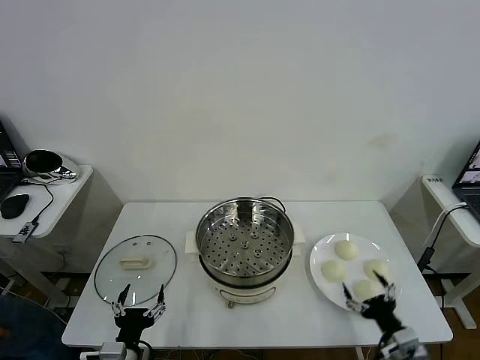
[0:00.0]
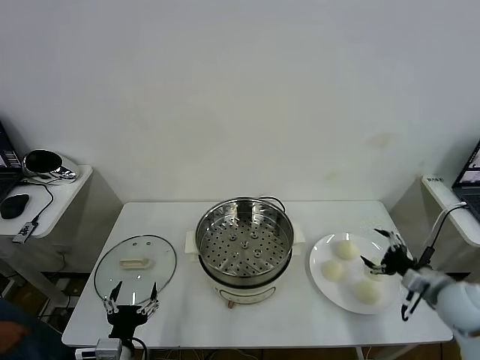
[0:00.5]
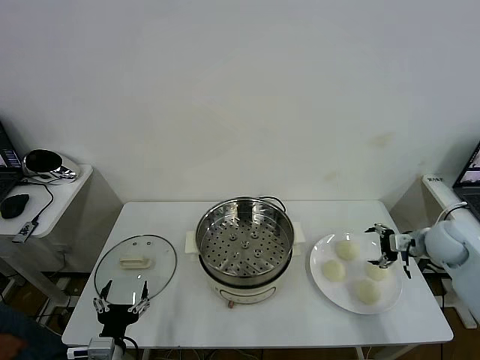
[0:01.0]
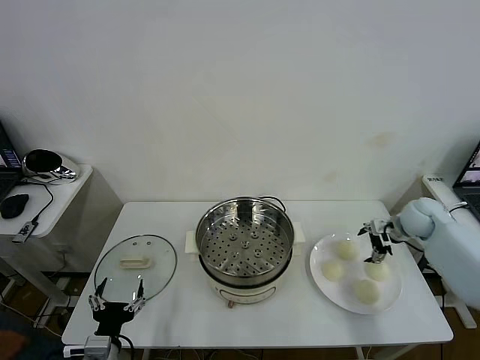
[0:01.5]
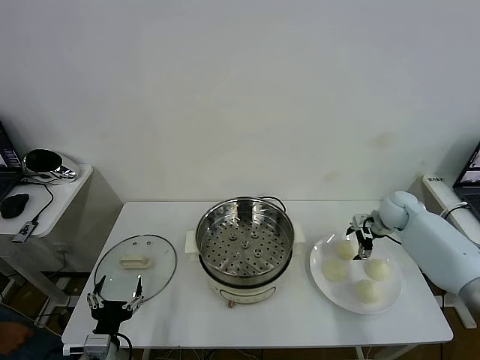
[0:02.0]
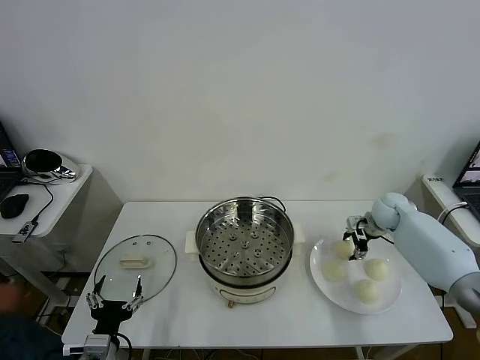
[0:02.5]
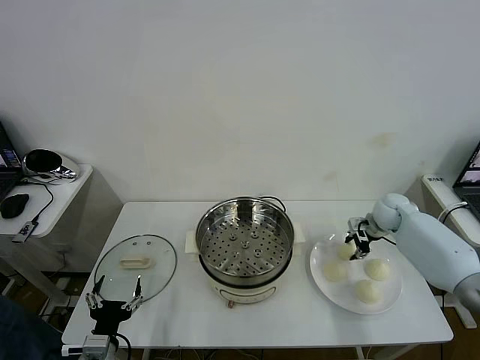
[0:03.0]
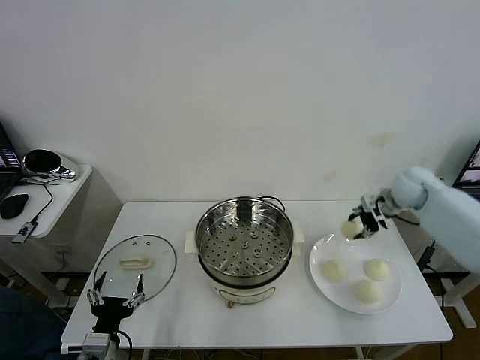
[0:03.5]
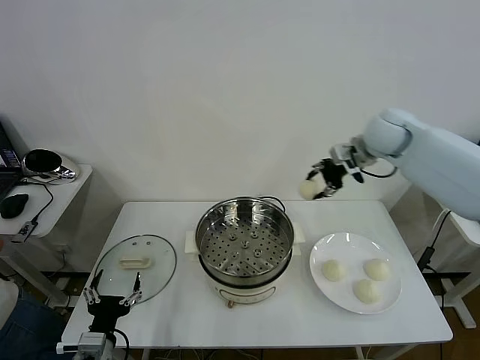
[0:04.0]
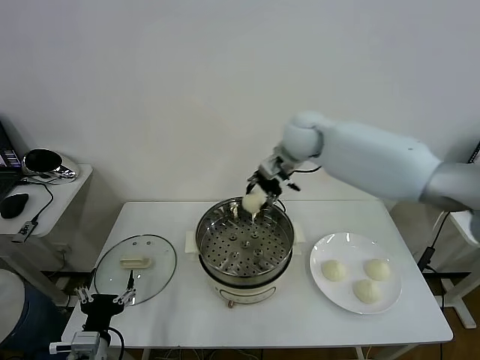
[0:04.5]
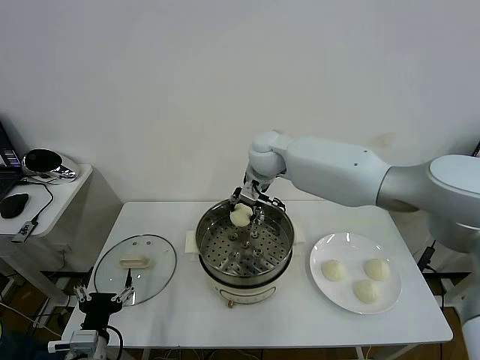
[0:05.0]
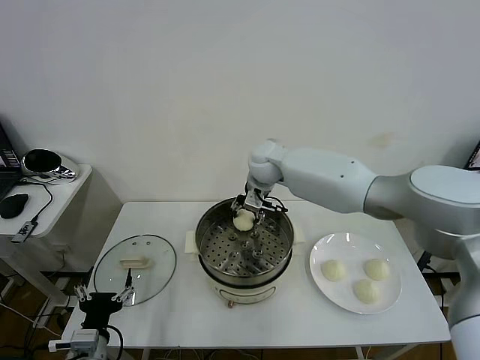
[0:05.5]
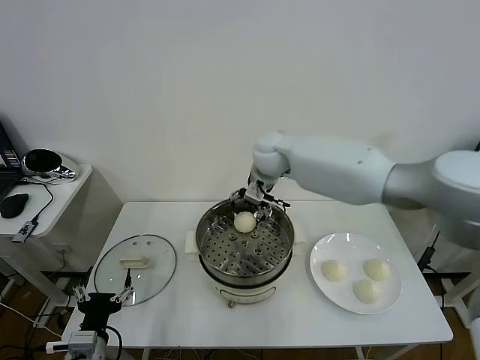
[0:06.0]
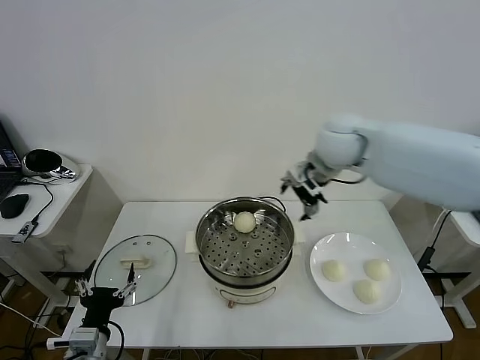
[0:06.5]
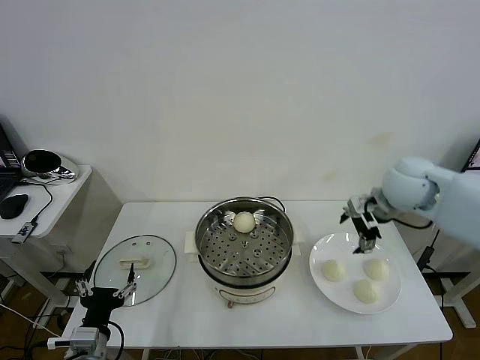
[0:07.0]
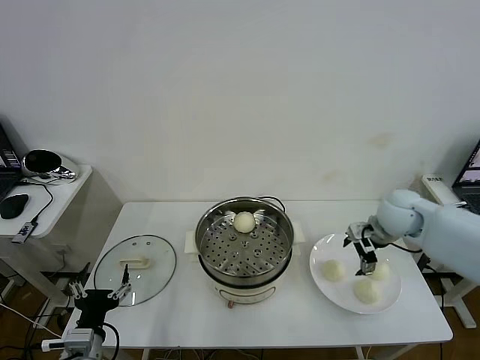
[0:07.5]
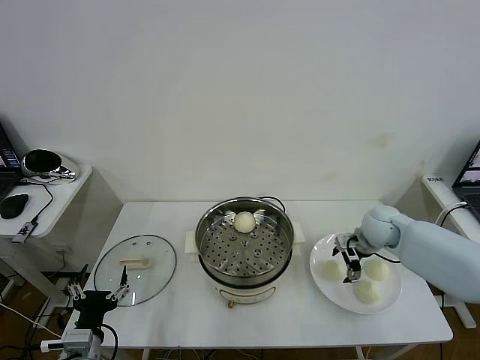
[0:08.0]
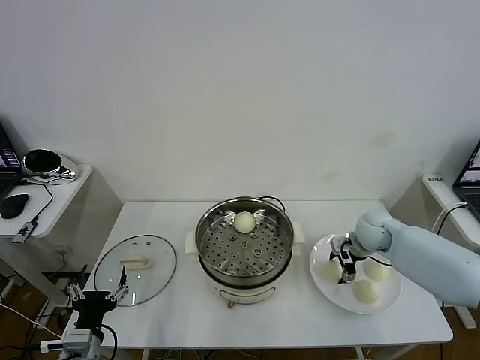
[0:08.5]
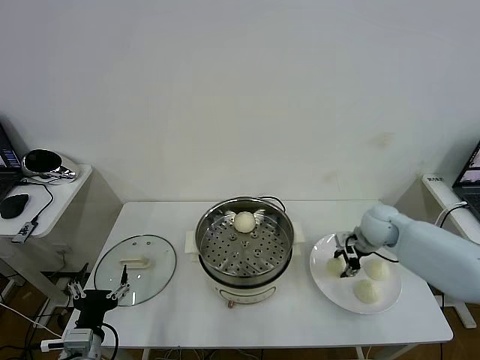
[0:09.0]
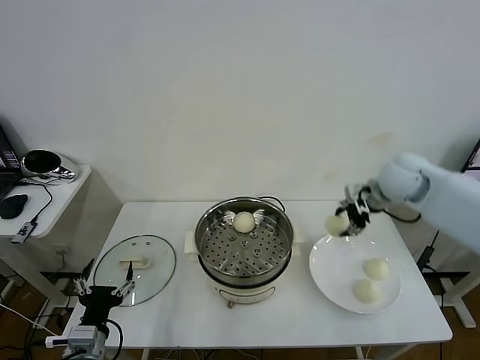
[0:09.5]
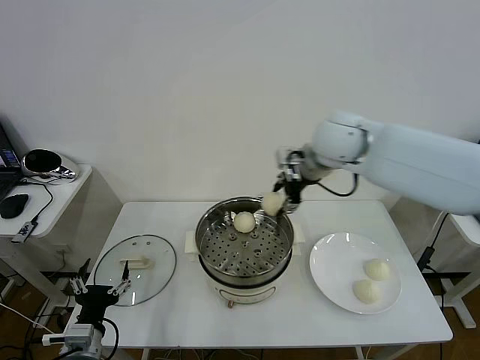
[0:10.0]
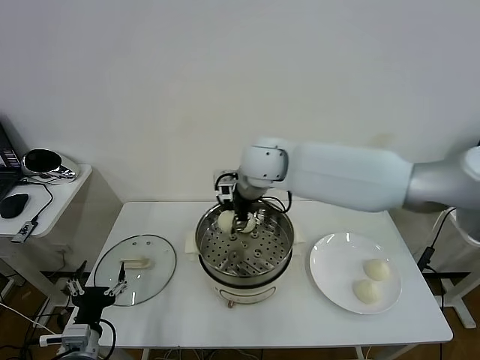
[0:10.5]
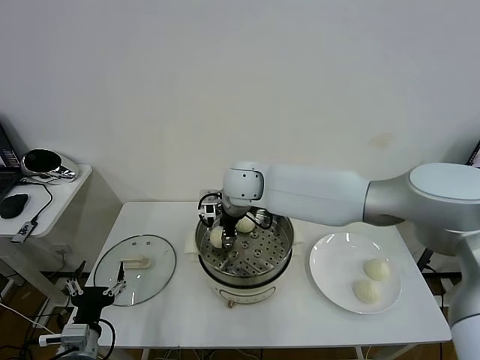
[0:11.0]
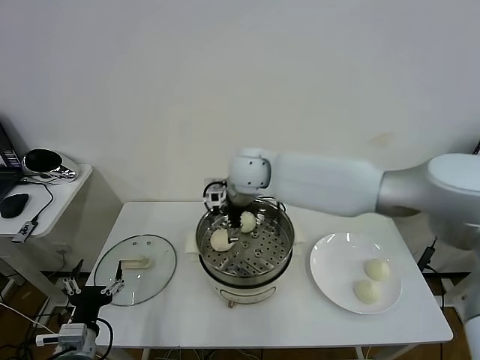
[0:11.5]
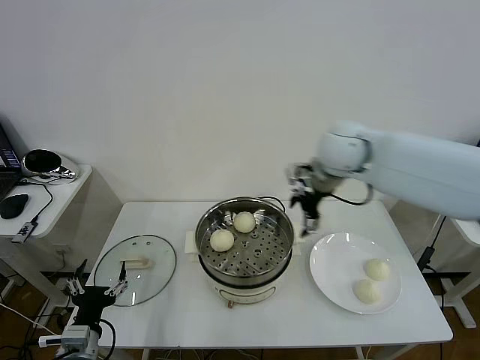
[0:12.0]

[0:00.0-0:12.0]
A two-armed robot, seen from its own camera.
Task of the whole recording: take steamed baozi put them in steamer then cover it.
Step, 0:00.0 to 0:02.5: Grasp the baozi in the plate with right gripper.
Step, 0:03.0 to 0:05.5: Place the baozi on the steamer with right gripper.
Step, 0:06.5 to 0:08.5: Grasp the baozi in the plate with right gripper.
Step, 0:09.0 to 0:11.5: Place the baozi on the steamer with right gripper.
0:02.0 to 0:04.0: The right gripper is displaced upward and to the left by about 30 cm, and closes its fingers.
0:04.0 to 0:06.0: The right gripper goes roughly 15 cm to the left, and opens its fingers.
0:06.0 to 0:08.0: The right gripper shifts some 30 cm to the right and downward.
0:08.0 to 0:10.0: The right gripper shifts some 30 cm upward and to the left, and closes its fingers.
0:10.0 to 0:12.0: The right gripper heads to the right, covering about 10 cm, and opens.

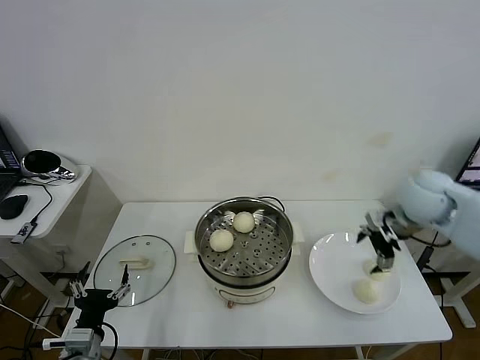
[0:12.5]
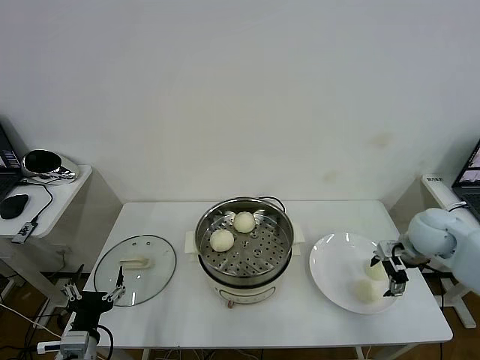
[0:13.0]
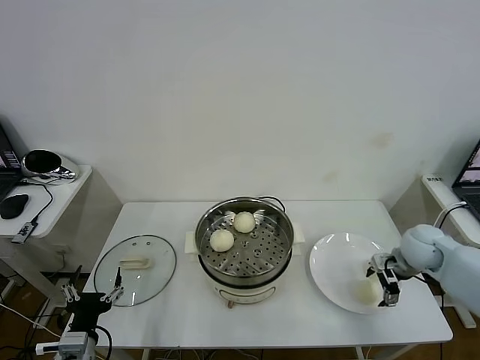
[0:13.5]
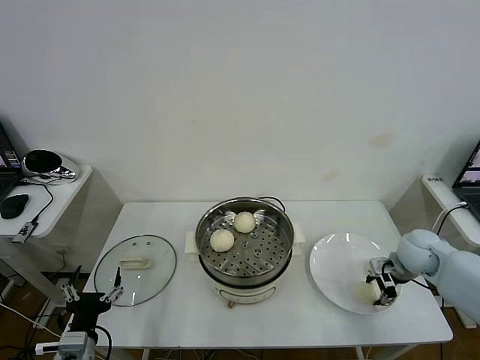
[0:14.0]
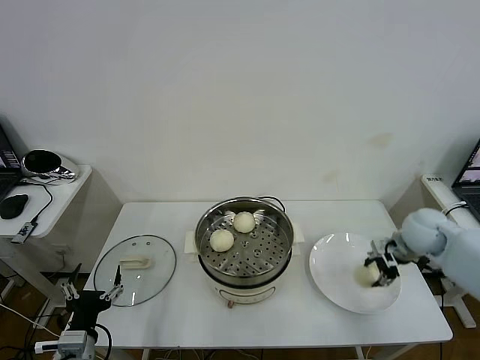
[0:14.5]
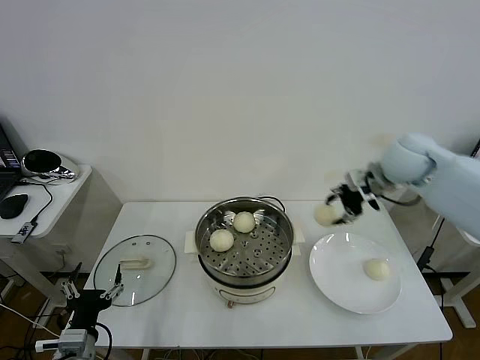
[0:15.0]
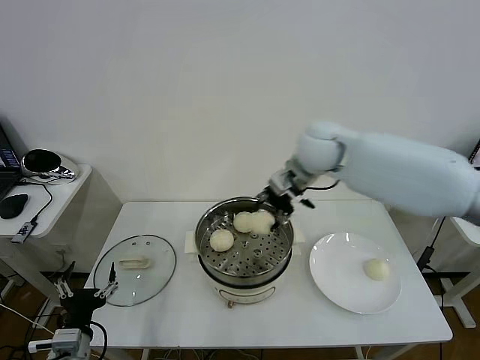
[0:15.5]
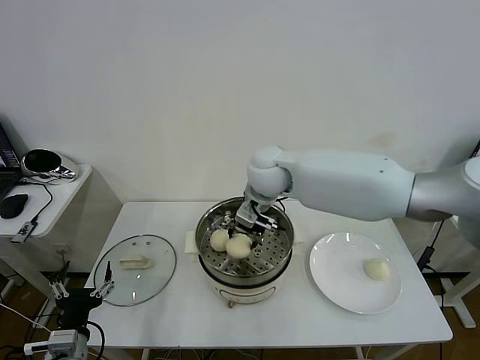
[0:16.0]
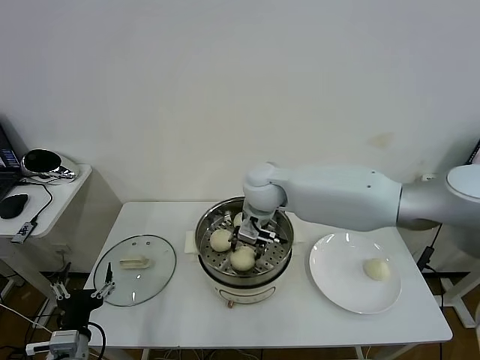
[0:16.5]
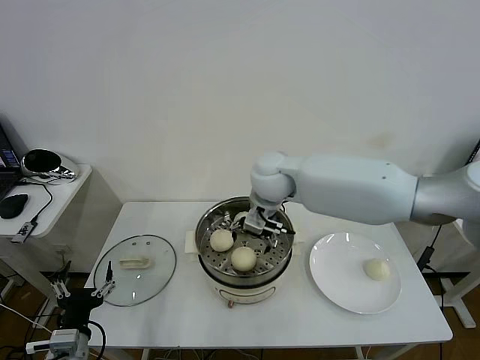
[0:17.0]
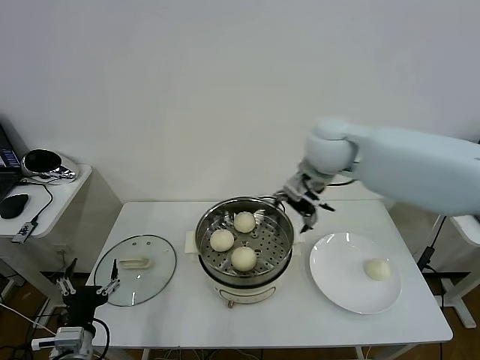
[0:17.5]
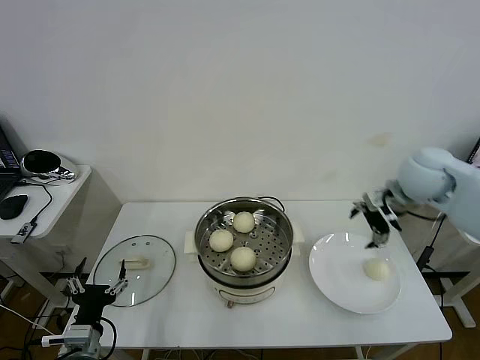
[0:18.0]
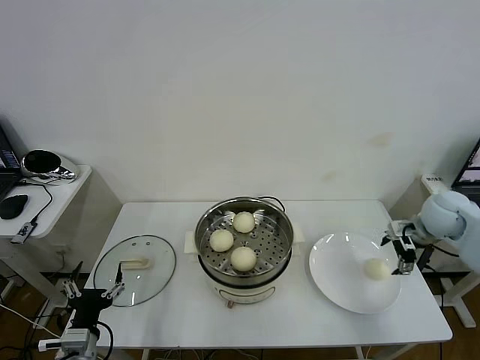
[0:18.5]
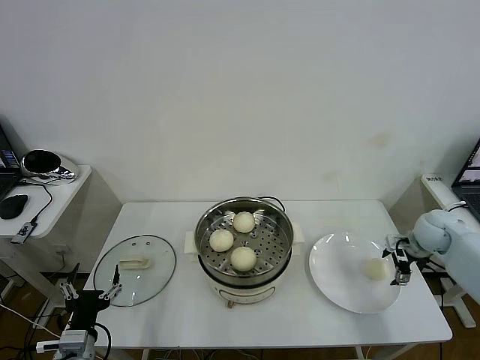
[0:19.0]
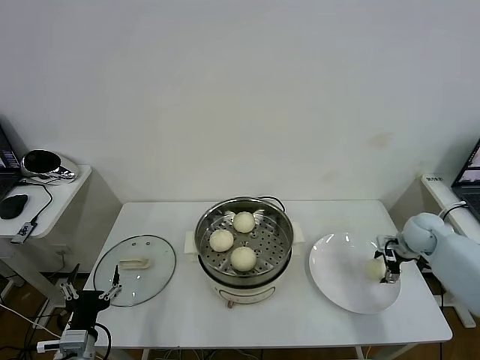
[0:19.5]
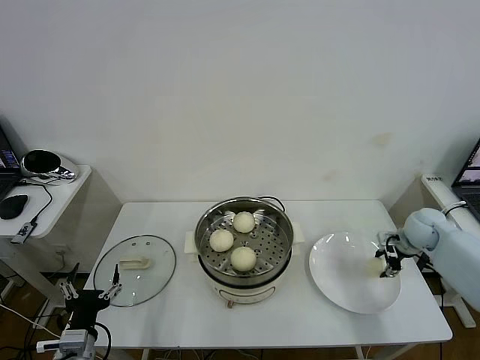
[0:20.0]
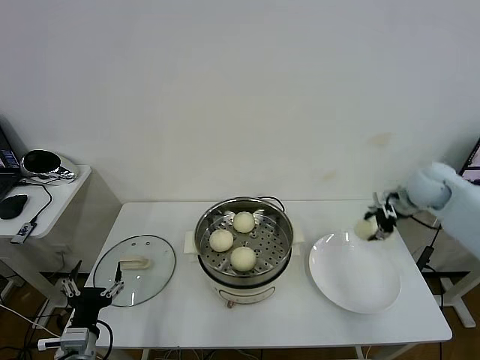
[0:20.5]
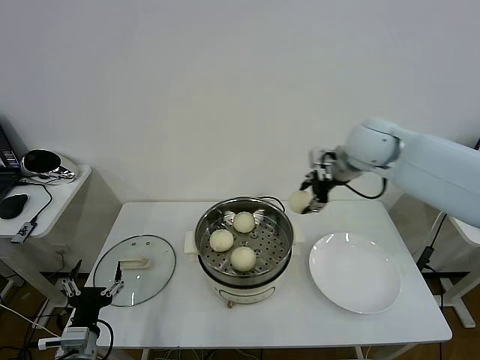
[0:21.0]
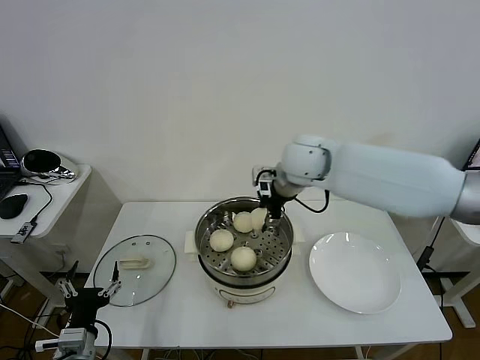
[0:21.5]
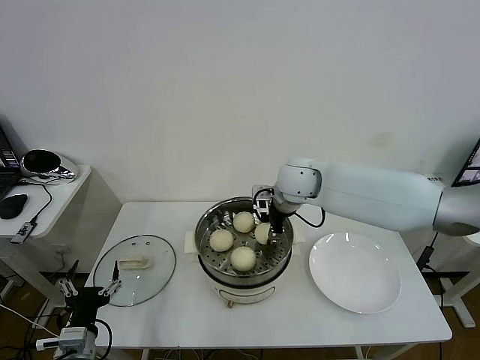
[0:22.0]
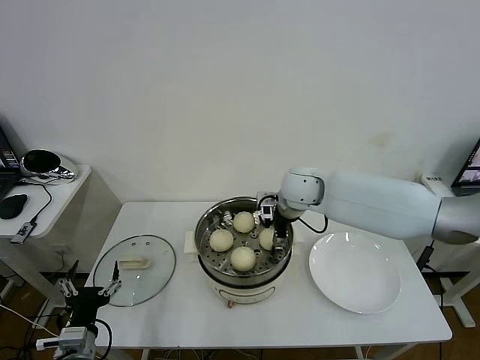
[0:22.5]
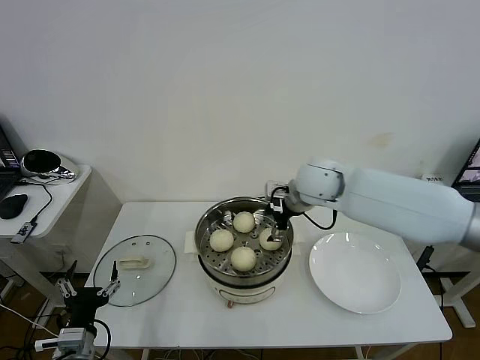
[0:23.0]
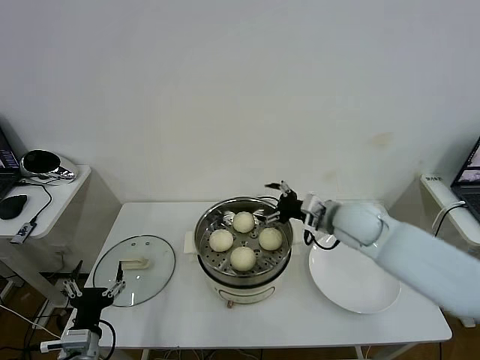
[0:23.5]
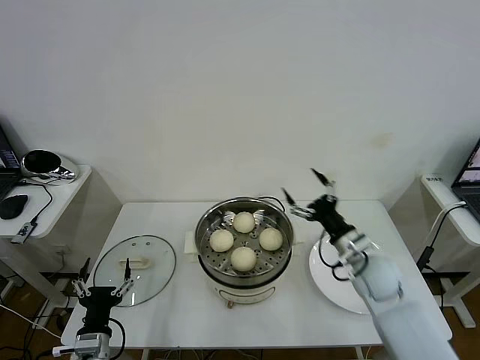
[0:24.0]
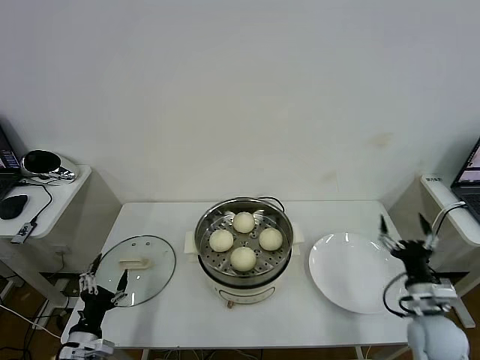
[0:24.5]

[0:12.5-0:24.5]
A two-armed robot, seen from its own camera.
Task of the whole recording: take steamed baozi put them in steamer then cover it.
Step, 0:12.5 to 0:14.0: Grasp the baozi in the plate with right gripper.
Step, 0:14.5 to 0:16.5: Place the baozi on the steamer with right gripper.
Step, 0:17.0 to 0:19.5: Grasp the baozi in the plate with right gripper.
Step, 0:20.5 to 0:22.5: Place the baozi on the steamer with right gripper.
0:12.5 to 0:14.5: The right gripper moves downward, about 5 cm, and closes.
0:14.5 to 0:16.5: The right gripper moves to the left, some 35 cm.
0:16.5 to 0:18.5: The right gripper travels to the right by some 40 cm, and opens.
0:18.5 to 0:20.5: The right gripper heads upward, covering approximately 5 cm, and closes.
0:20.5 to 0:22.5: The right gripper shifts about 25 cm to the left, and opens up.
0:22.5 to 0:24.5: The right gripper is displaced backward, to the right and downward by some 40 cm. The left gripper shifts roughly 5 cm downward.

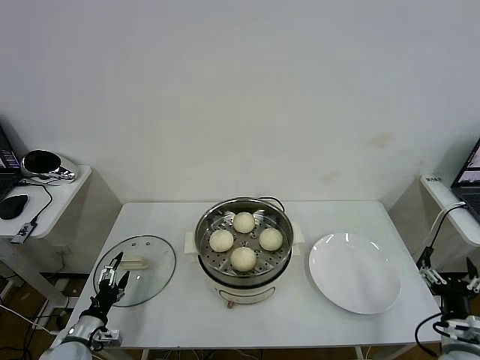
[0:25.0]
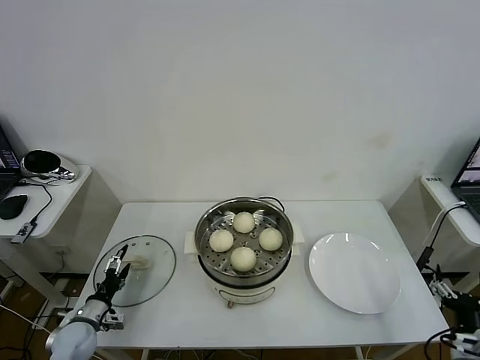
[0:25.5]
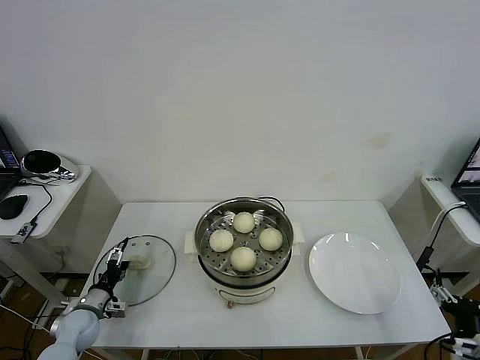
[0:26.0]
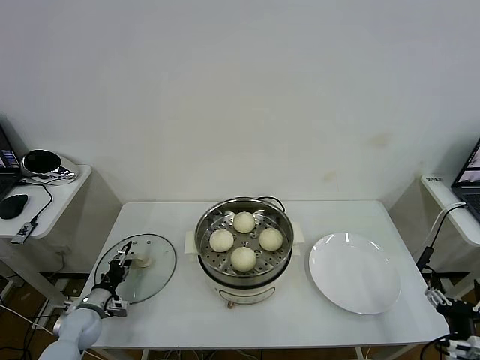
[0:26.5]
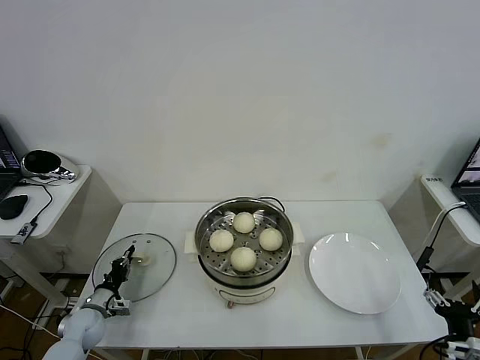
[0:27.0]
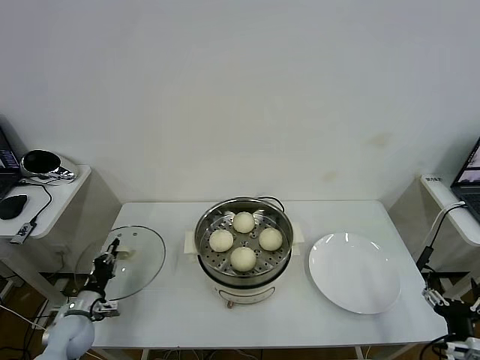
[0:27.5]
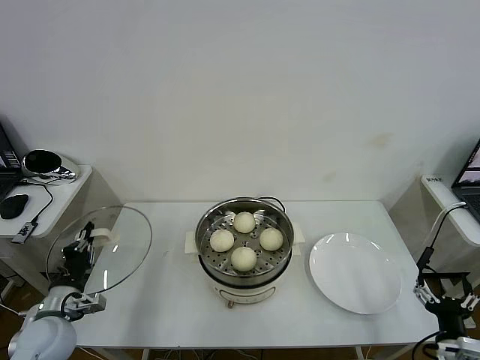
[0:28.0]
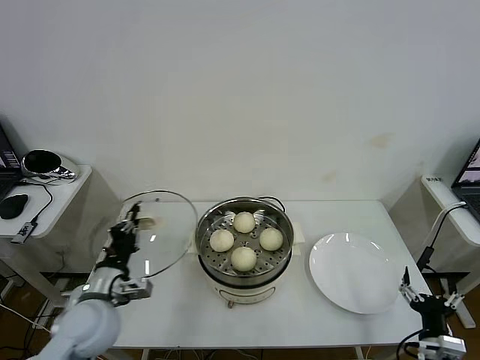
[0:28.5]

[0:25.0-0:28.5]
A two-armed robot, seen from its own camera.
Task of the whole recording: take steamed baozi put them in steamer then cover it.
Step, 0:25.0 to 0:27.0: Grasp the pot lid with left gripper.
0:25.0 to 0:27.0: The left gripper goes about 10 cm forward, and closes.
0:27.0 to 0:28.5: The left gripper travels upward and to the right by about 25 cm.
